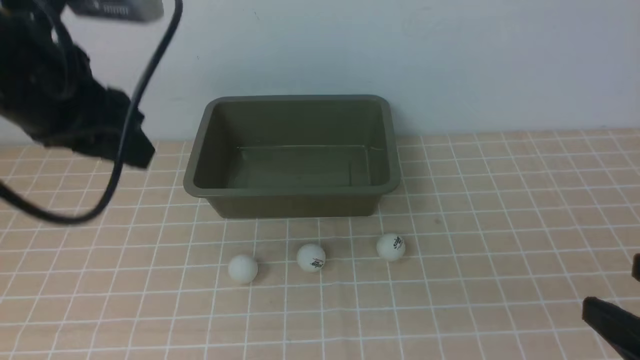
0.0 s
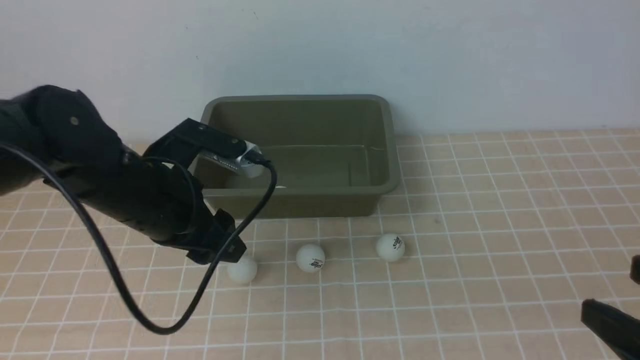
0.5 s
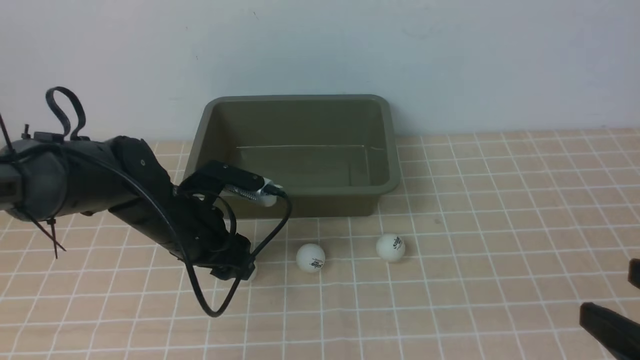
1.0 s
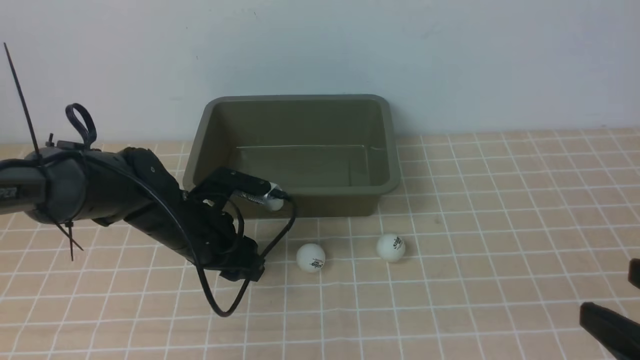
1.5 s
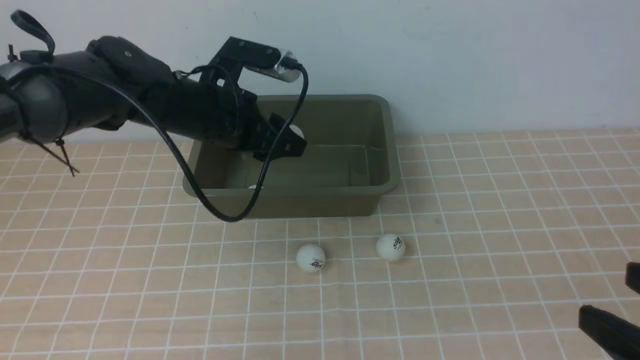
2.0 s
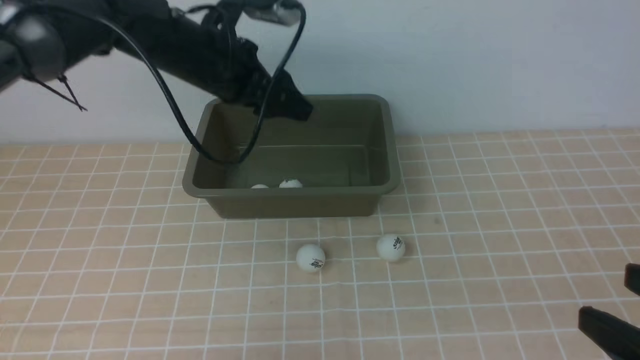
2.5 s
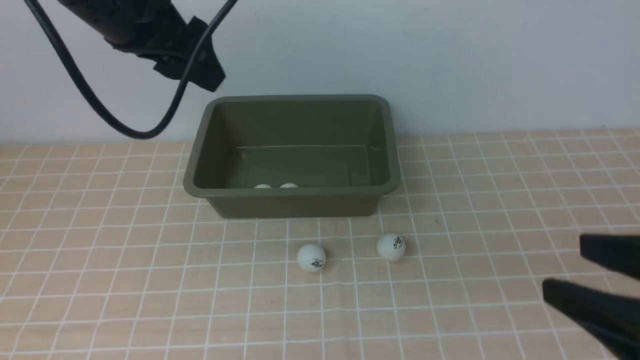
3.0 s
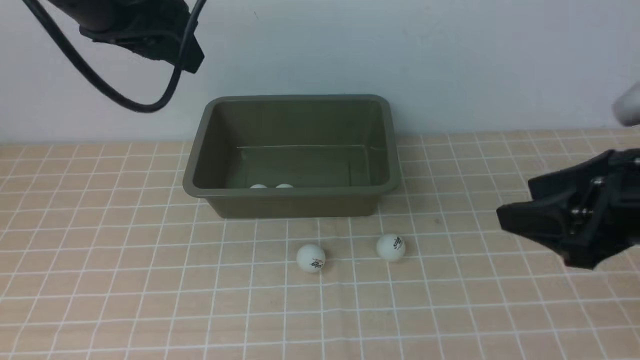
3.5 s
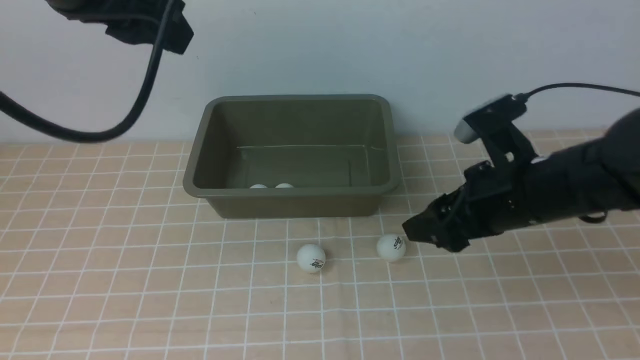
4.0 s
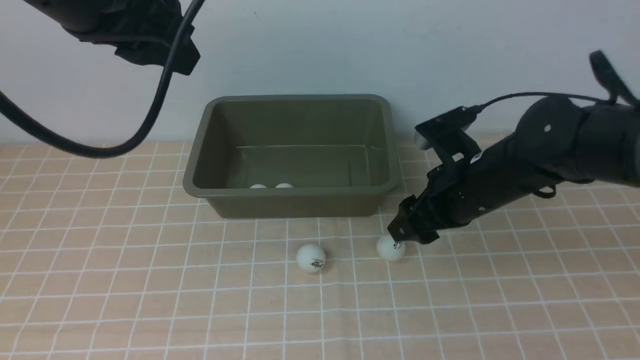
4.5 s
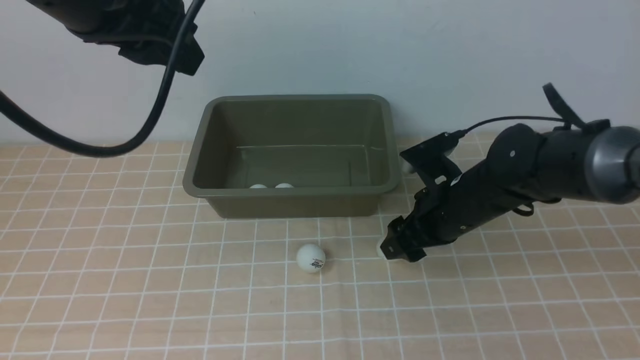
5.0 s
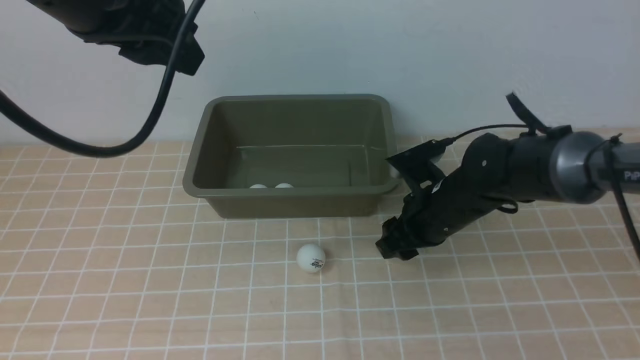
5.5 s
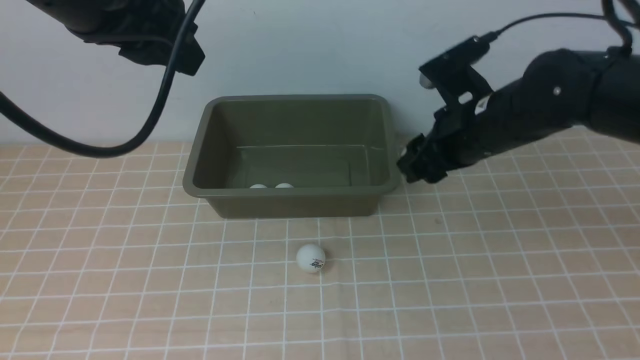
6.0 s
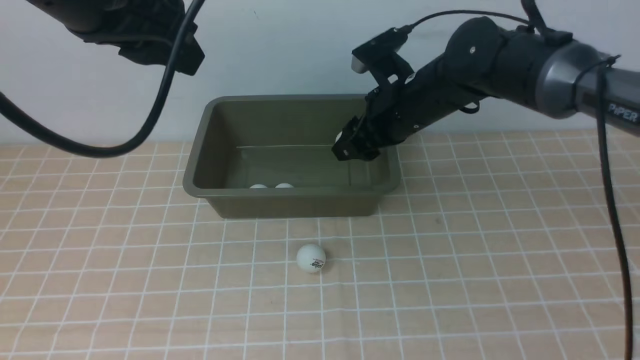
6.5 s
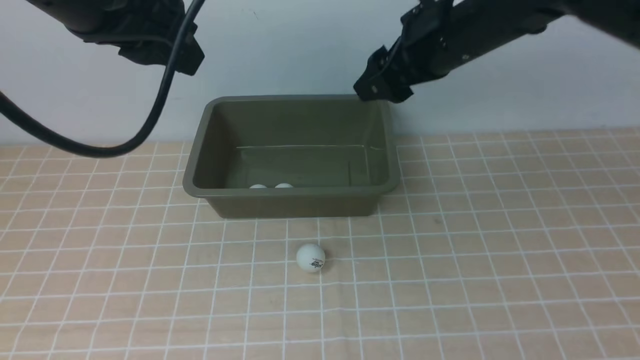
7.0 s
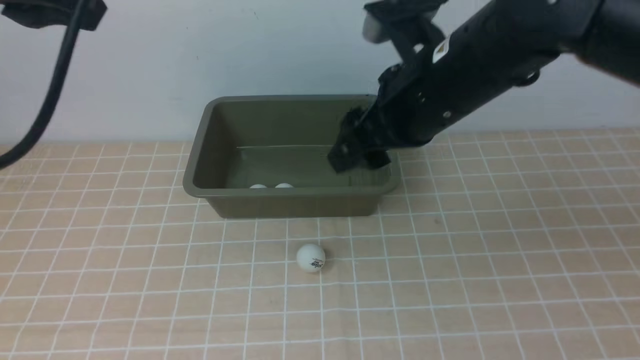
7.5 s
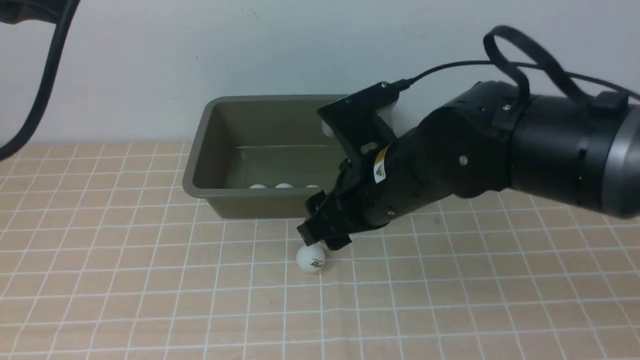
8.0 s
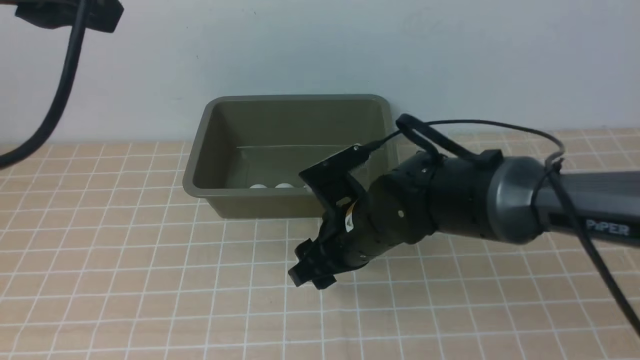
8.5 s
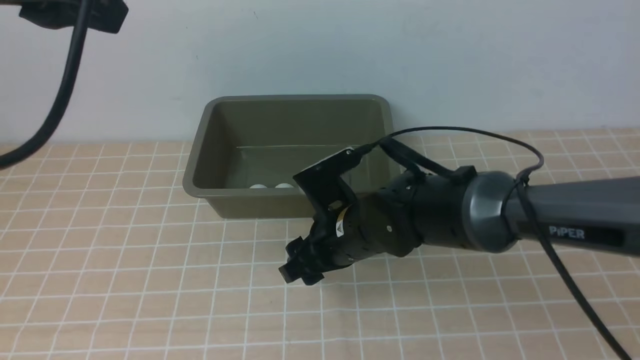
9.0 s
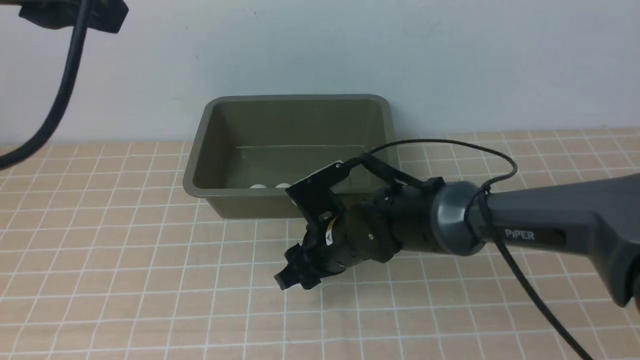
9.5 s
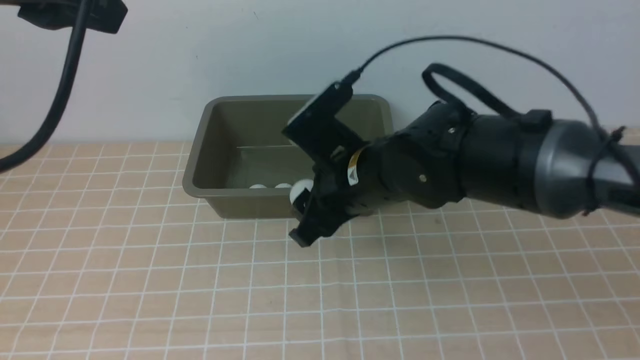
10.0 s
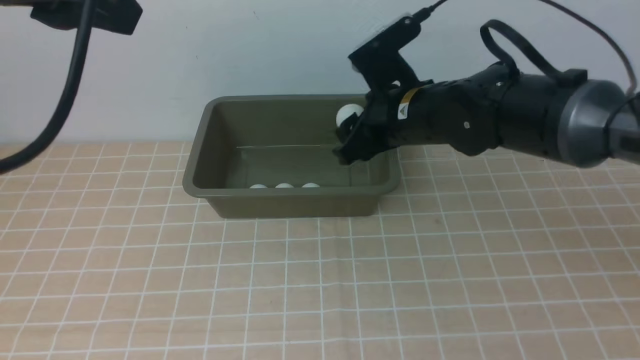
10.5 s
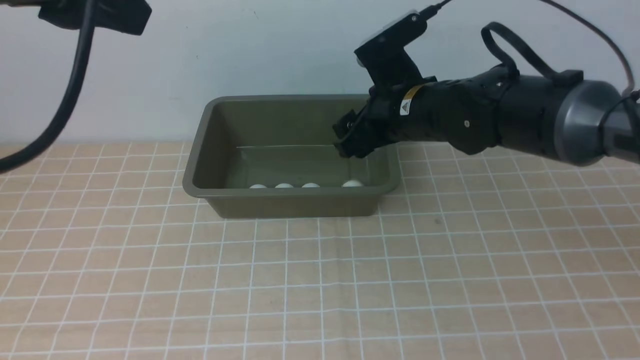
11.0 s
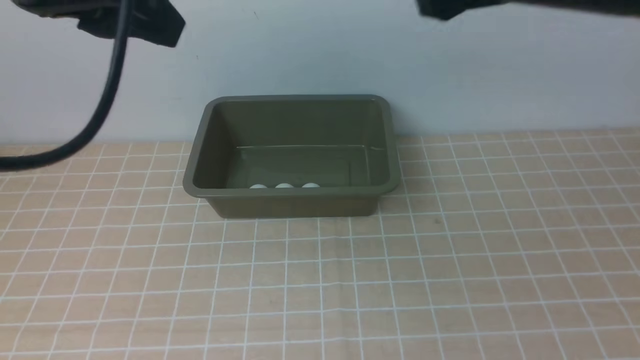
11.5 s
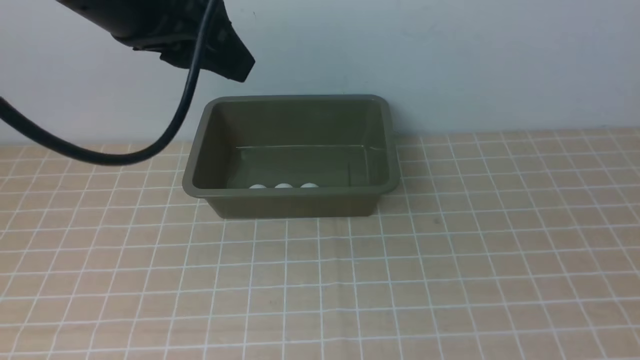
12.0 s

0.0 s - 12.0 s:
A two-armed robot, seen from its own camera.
Step, 0.0 s - 1.5 s: use the left arm to clamp the table tennis ball closest to it.
Step, 2.0 s - 2.5 s: use the left arm to put the table tennis ball into the box.
Step, 3.0 s - 5.5 s: use the right arm to clamp the table tennis ball closest to it.
Step, 6.0 s - 6.5 s: use the right arm to put the table tennis ball into the box.
Step, 7.0 s - 9.5 s: use the right arm to clamp the table tennis ball closest to it.
Step, 10.0 s - 11.0 s: use the right arm to put the table tennis ball into the box.
0.0 s - 2.0 s: The left gripper travels downward, forward and to the right by approximately 20 cm, and opens, then closes once more.
2.0 s - 4.0 s: The left gripper is displaced upward and backward by approximately 25 cm, and opens and closes again. Meanwhile the right gripper moves forward, about 20 cm.
4.0 s - 6.0 s: The right gripper shifts roughly 10 cm forward, goes downward and returns, approximately 10 cm each way, and closes.
6.0 s - 8.0 s: The left gripper ends up approximately 5 cm from where it was. Meanwhile the right gripper heads to the left and backward, covering some 10 cm, and opens.
8.0 s - 10.0 s: The right gripper goes downward and returns, about 10 cm each way, and closes its fingers.
10.0 s - 12.0 s: The left gripper ends up some 10 cm from where it was. The right gripper heads to the right, upward and backward, covering about 35 cm, and opens its fingers.

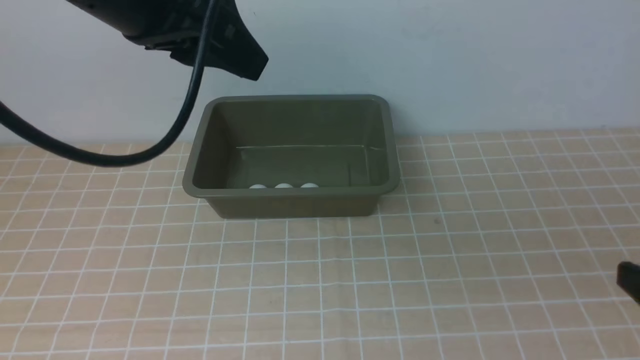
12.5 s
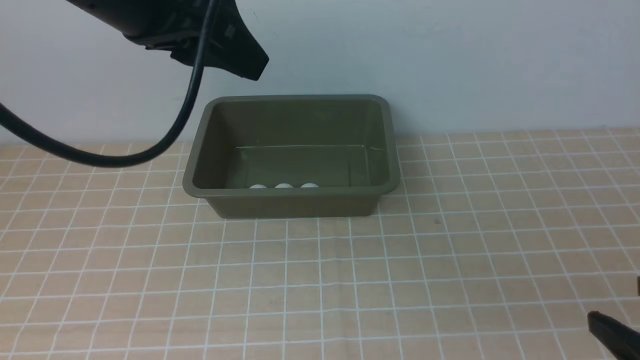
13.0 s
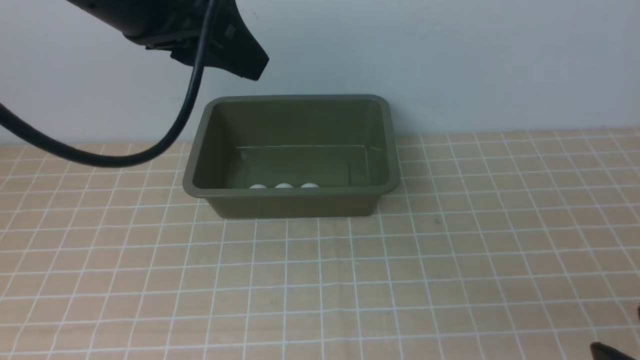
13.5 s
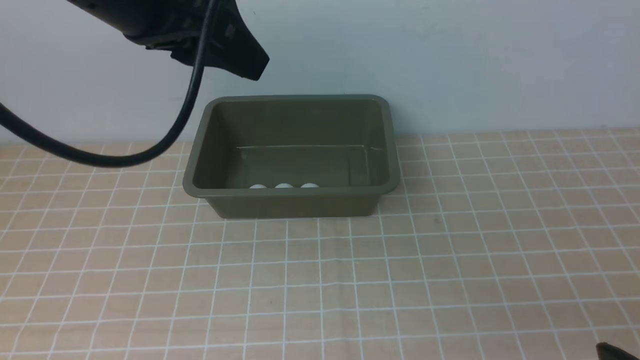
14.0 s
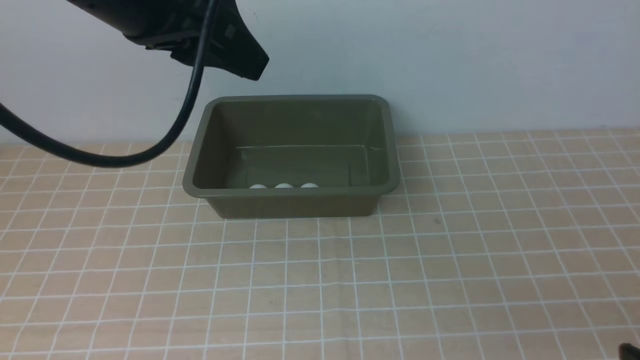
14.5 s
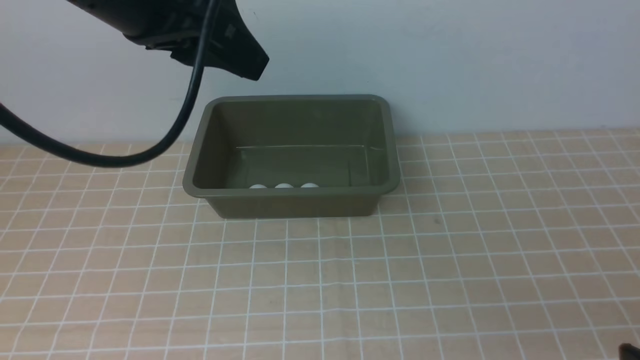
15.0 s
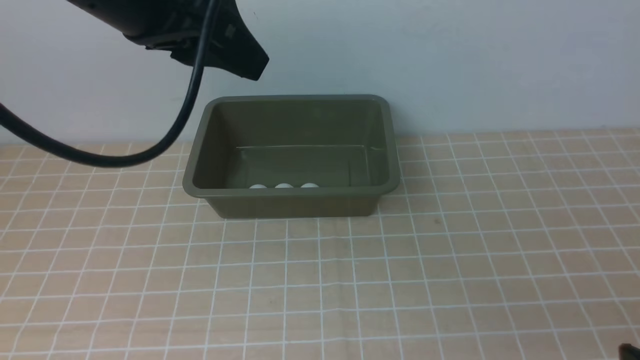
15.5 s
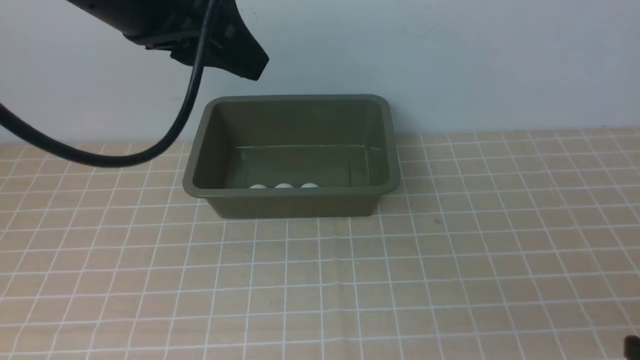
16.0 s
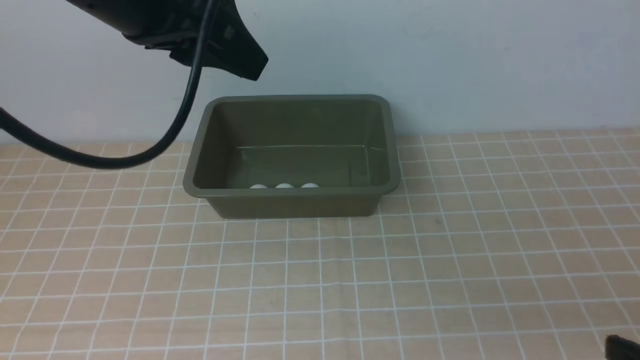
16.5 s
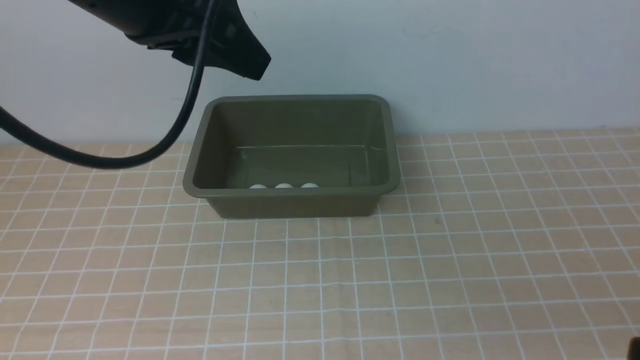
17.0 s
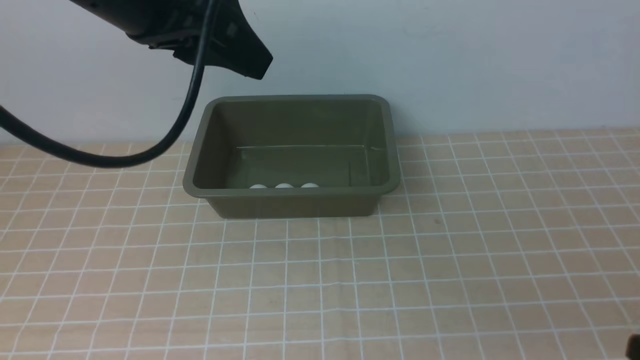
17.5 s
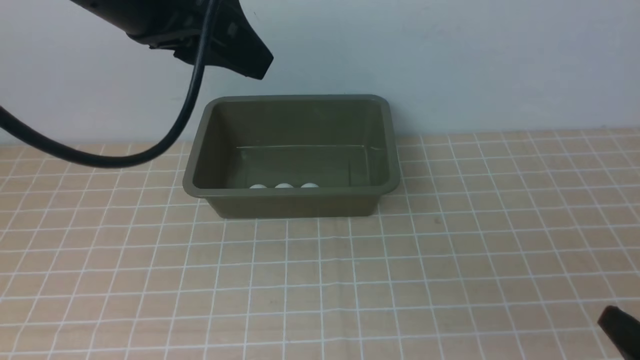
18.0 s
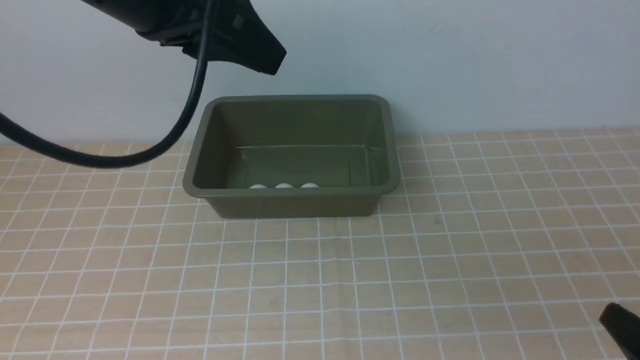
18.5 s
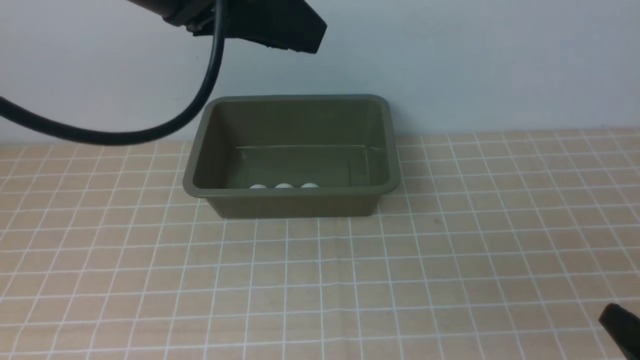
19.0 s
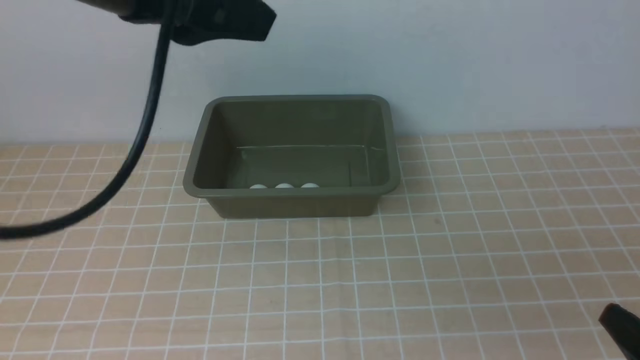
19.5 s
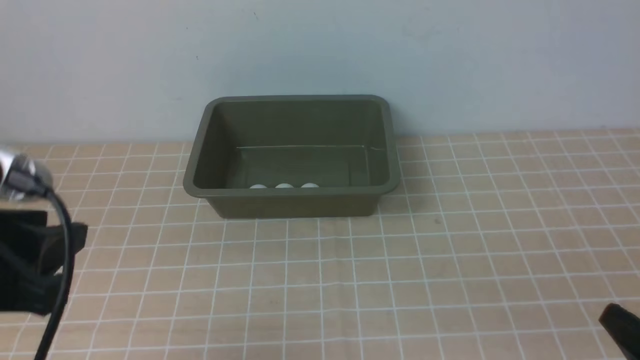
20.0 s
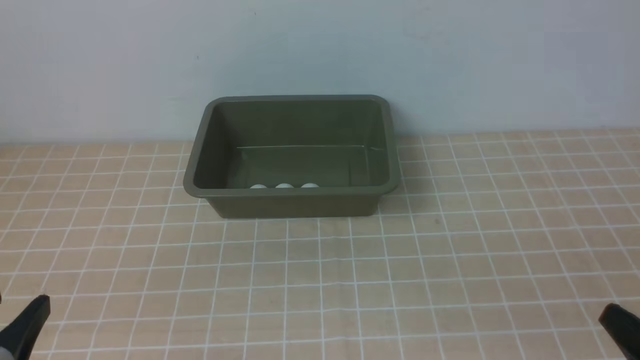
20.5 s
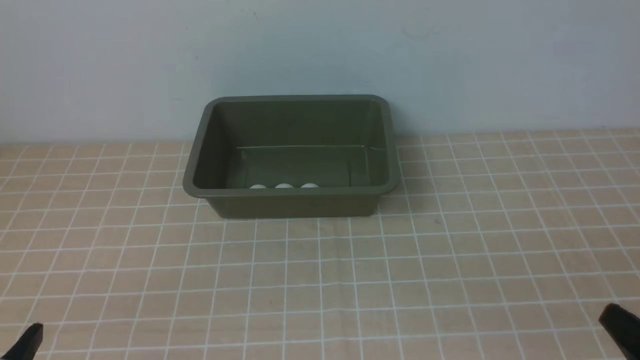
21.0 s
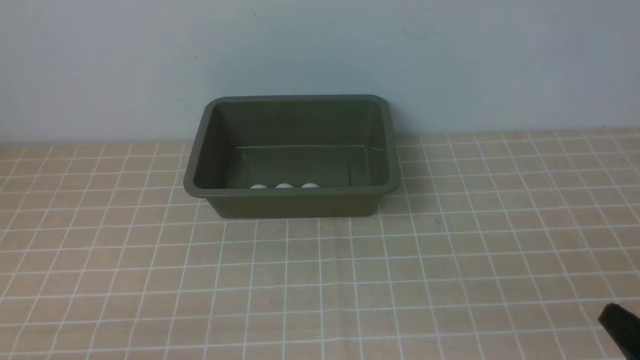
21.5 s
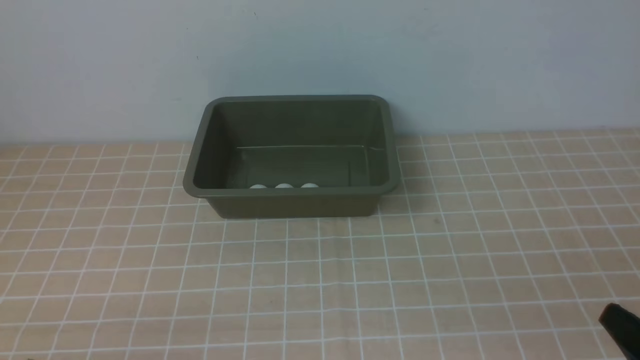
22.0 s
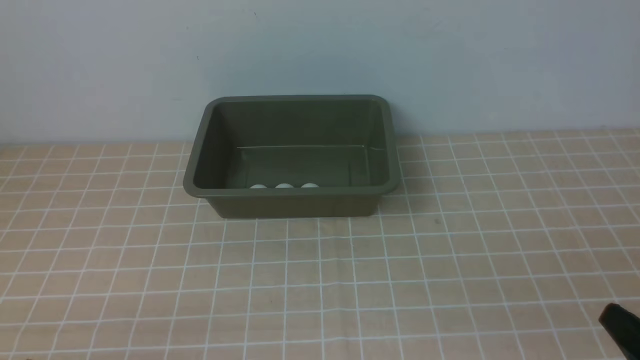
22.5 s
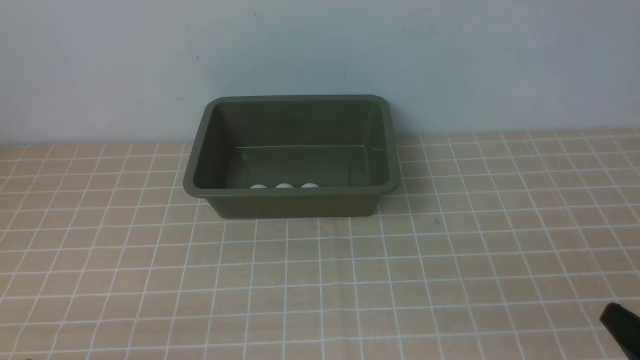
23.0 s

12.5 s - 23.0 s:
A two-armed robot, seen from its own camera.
14.5 s - 16.5 s: The grippers move only a little.
16.5 s - 19.0 s: The grippers move only a little.
19.0 s - 21.0 s: The left gripper heads downward, backward and to the left, covering approximately 35 cm.
